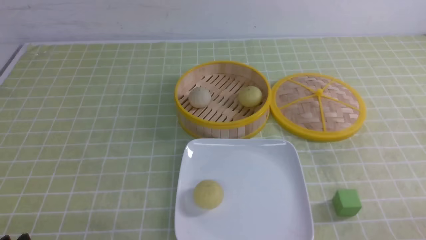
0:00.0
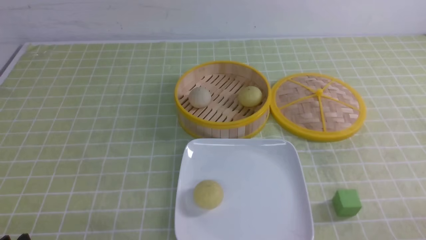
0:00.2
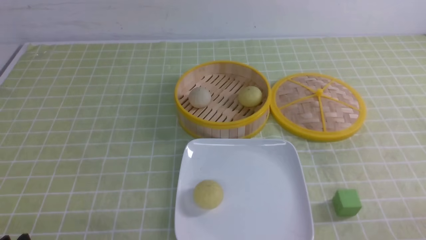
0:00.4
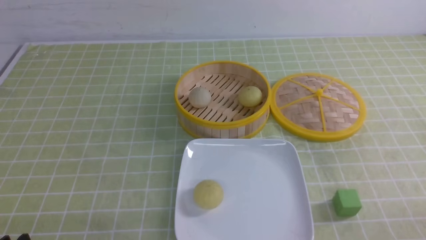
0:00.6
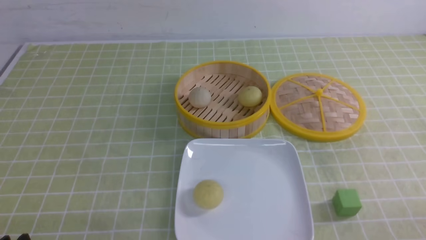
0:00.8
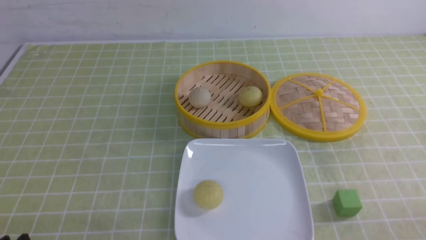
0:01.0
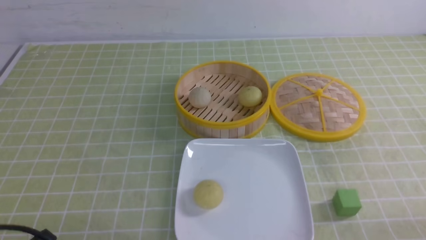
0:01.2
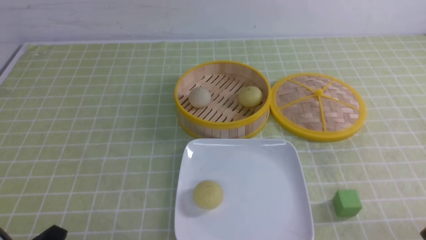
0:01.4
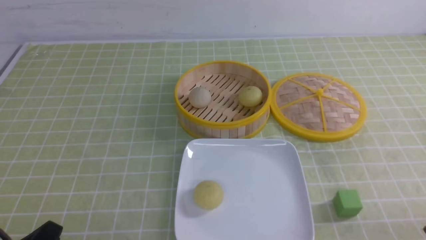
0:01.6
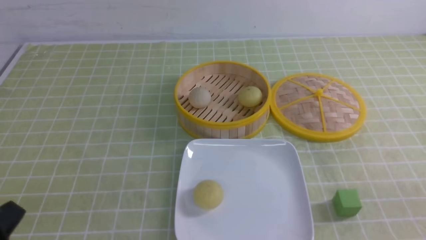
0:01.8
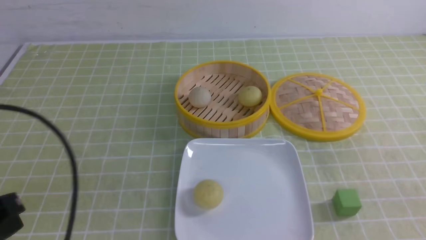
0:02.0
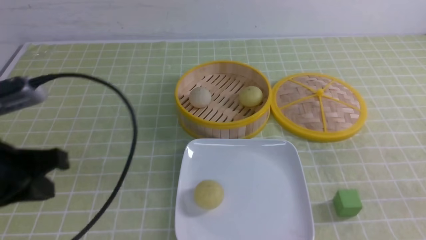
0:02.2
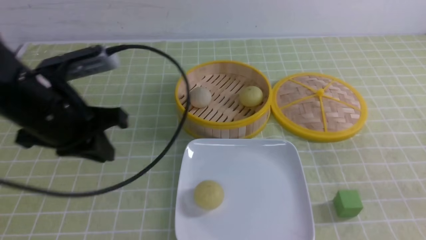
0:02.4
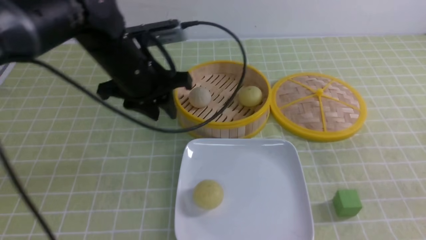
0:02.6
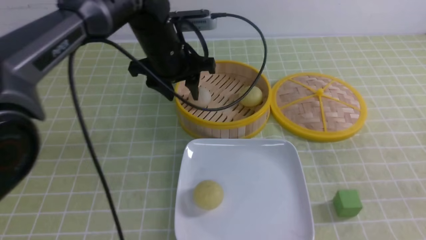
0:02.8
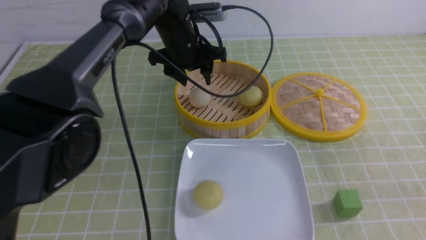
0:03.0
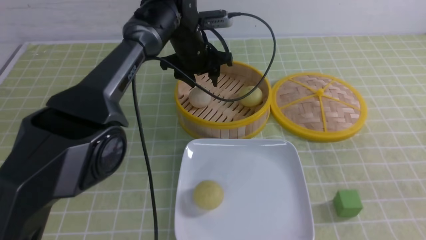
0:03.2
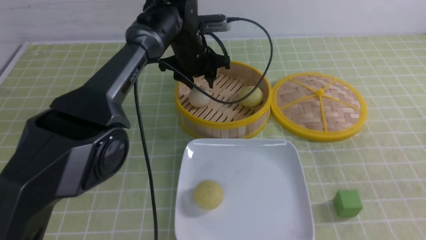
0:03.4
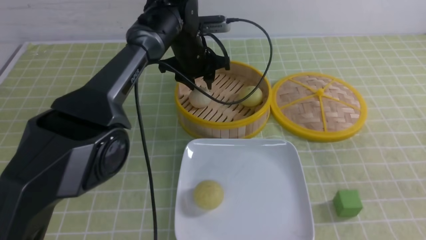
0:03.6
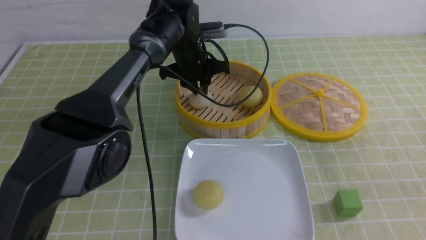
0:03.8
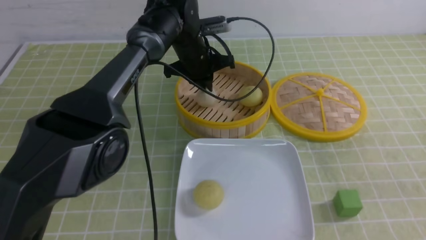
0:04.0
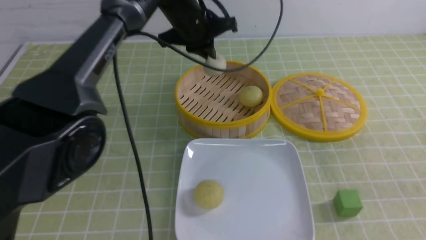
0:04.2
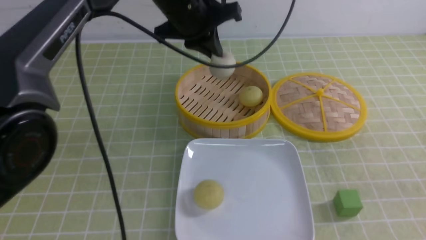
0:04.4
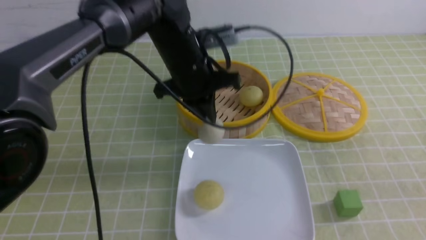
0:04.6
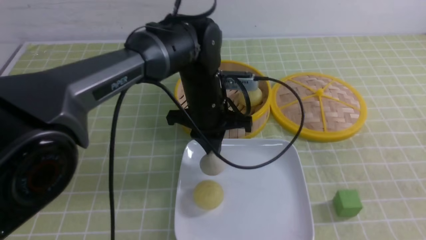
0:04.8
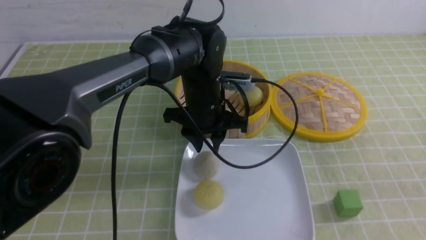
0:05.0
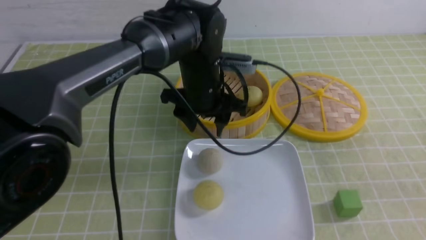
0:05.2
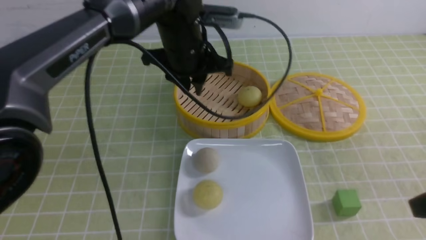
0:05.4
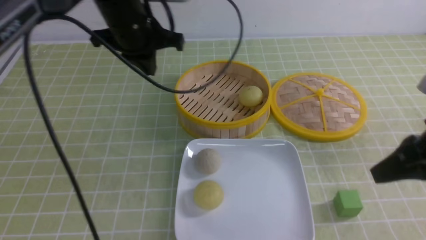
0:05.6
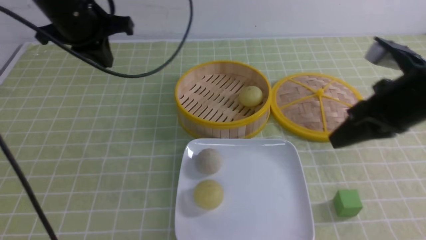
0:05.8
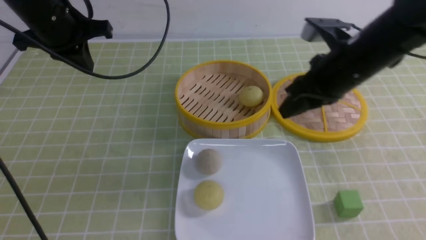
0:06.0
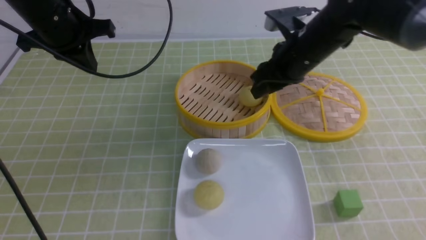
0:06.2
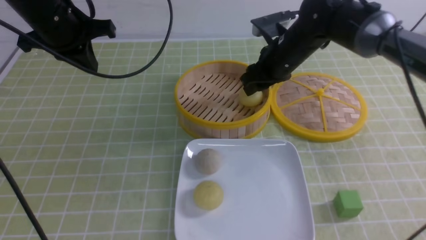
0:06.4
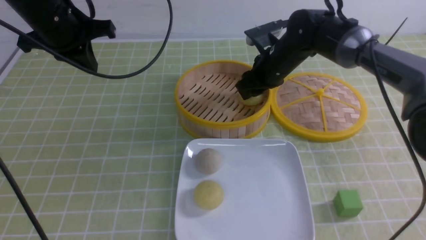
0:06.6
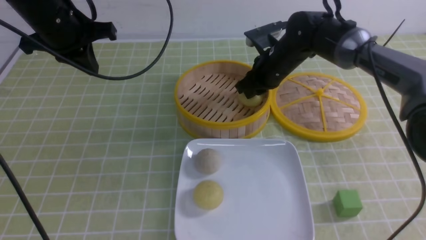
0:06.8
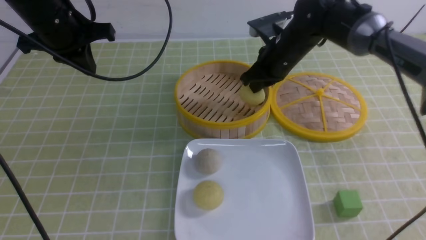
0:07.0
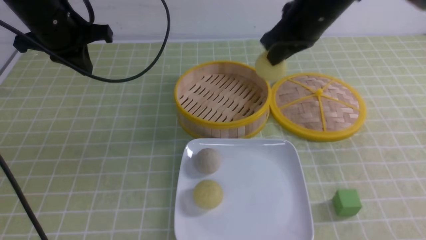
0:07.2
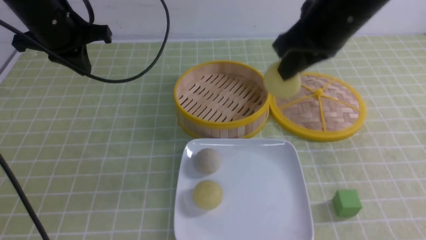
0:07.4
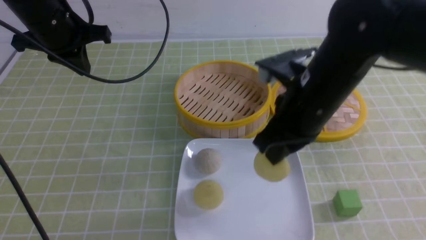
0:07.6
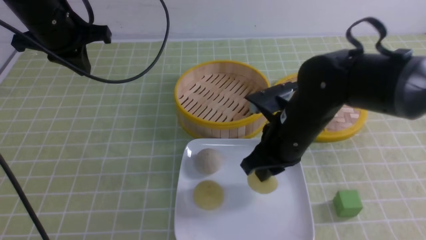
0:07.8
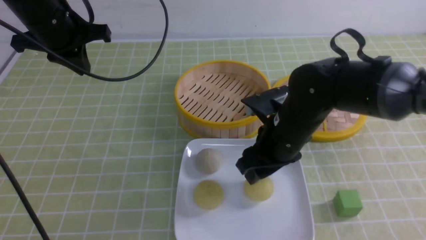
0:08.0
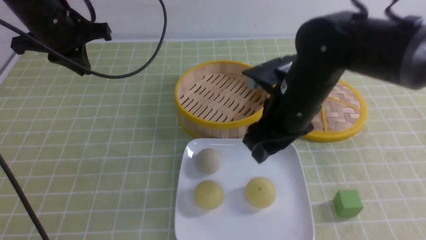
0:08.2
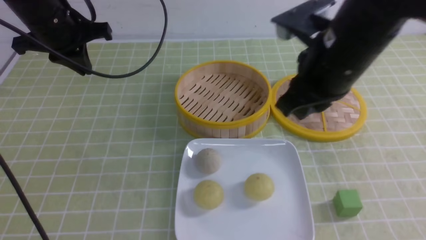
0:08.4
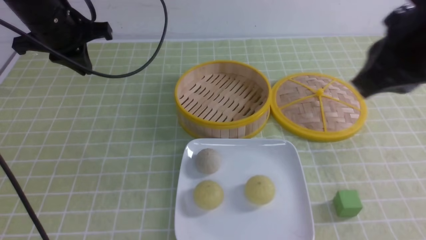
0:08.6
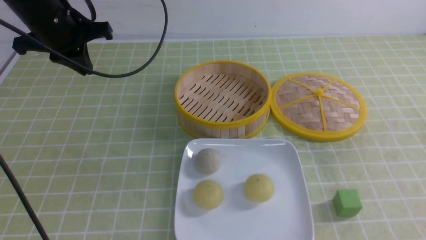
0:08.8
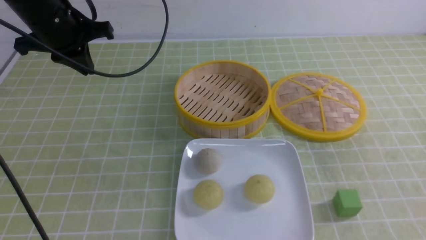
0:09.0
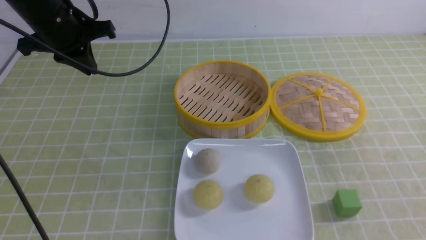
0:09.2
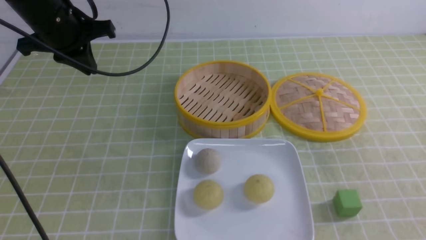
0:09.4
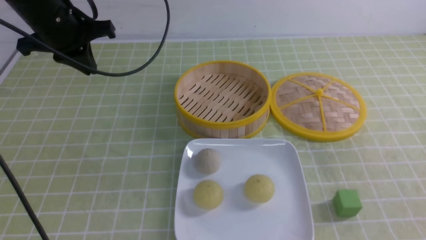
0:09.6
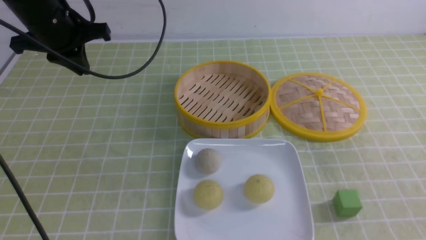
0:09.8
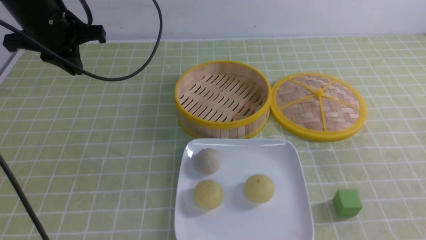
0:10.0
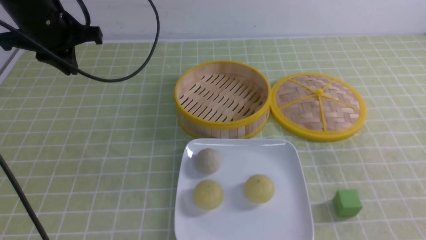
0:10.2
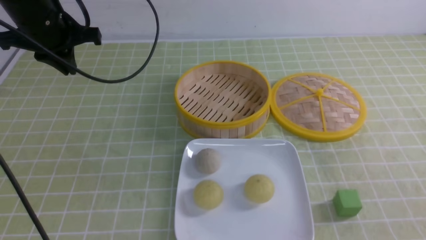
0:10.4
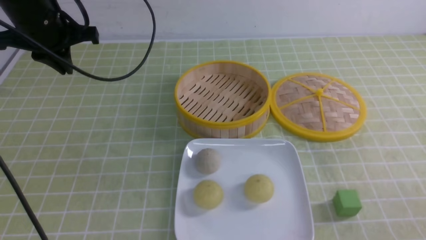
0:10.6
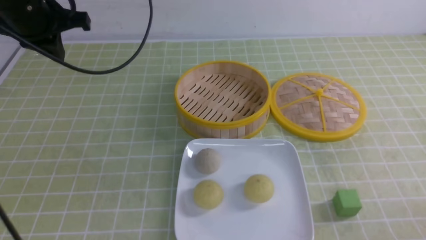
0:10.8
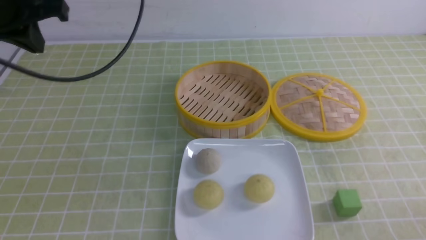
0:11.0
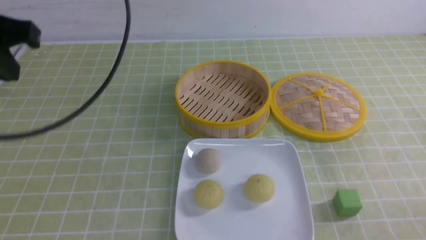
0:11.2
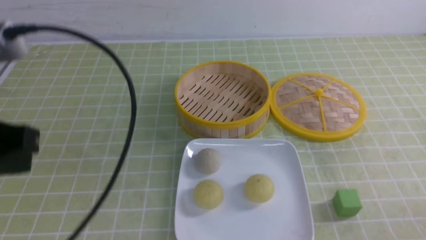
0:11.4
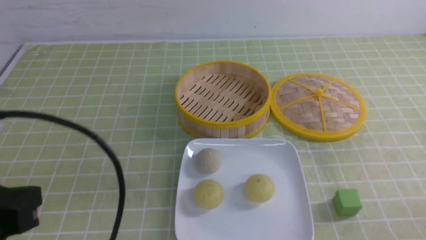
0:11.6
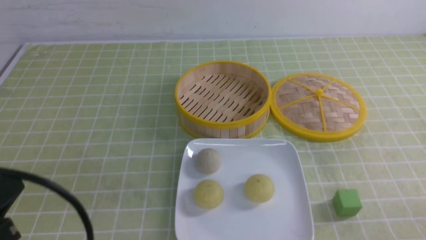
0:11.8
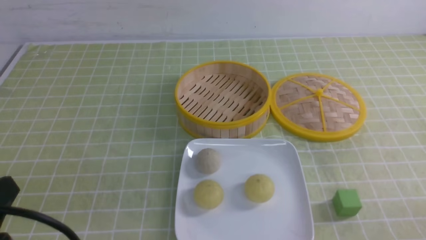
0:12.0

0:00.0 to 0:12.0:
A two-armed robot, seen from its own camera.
Step, 0:00.0 to 0:03.8: use the left arm to grab the steamed stuffed bun that is closest to it.
Step, 0:04.0 to 0:04.8: use the left arm to put the steamed stuffed bun into the plate.
Step, 0:05.2 to 0:06.8: use the right arm to grab the steamed stuffed bun that is closest to it.
Step, 0:07.0 to 0:08.0: use the right arm to put the steamed stuffed bun into the plate.
0:01.6 to 0:03.0: The right gripper is displaced forward and upward by roughly 10 cm, while the left gripper travels forward and to the right by about 50 cm, and opens its fingers.
0:03.0 to 0:04.4: The left gripper moves approximately 5 cm, and closes.
0:04.4 to 0:06.0: The left gripper travels to the left by roughly 20 cm, and opens, then closes again, while the right gripper heads forward and to the left, covering approximately 25 cm.
0:06.0 to 0:07.6: The right gripper travels to the left by about 5 cm, moves roughly 15 cm forward and comes back, and closes.
0:07.6 to 0:09.0: The right gripper heads backward and to the right, covering roughly 30 cm, and opens and closes again.
0:10.4 to 0:12.0: The left gripper goes some 35 cm backward.

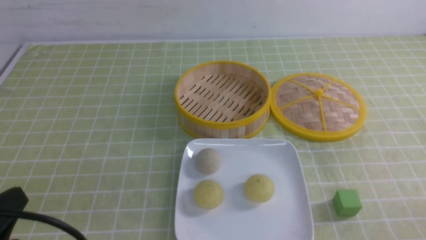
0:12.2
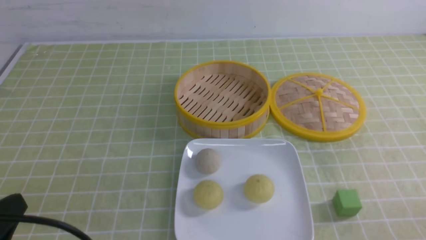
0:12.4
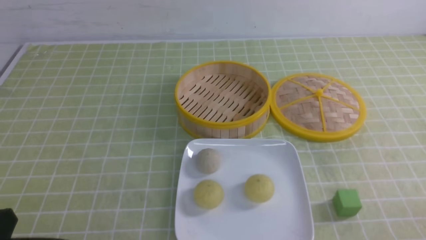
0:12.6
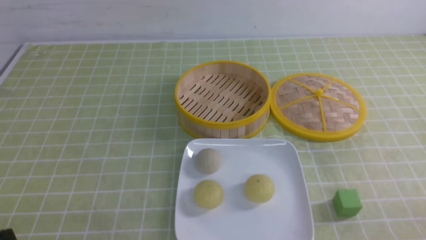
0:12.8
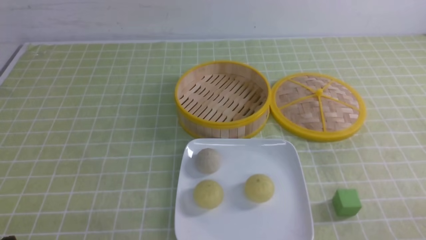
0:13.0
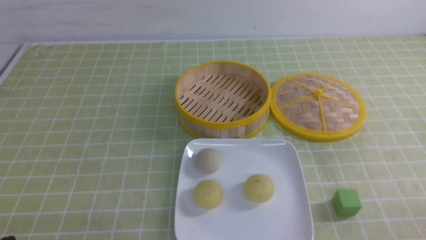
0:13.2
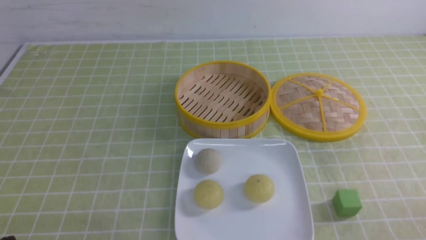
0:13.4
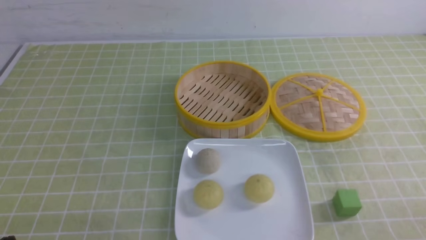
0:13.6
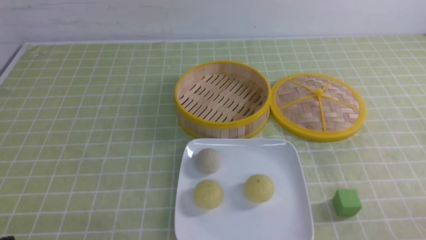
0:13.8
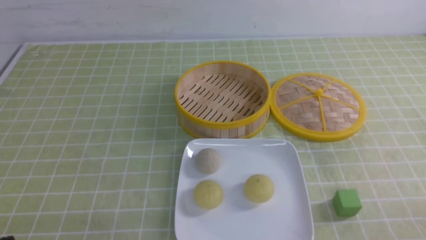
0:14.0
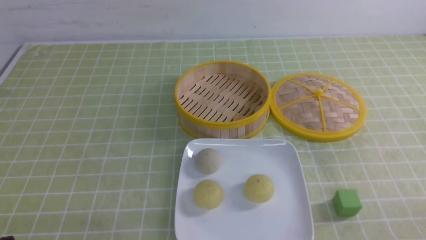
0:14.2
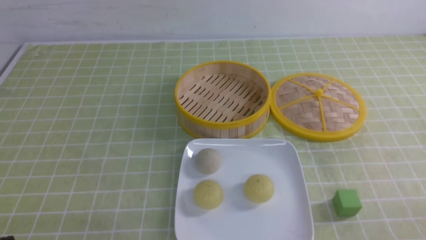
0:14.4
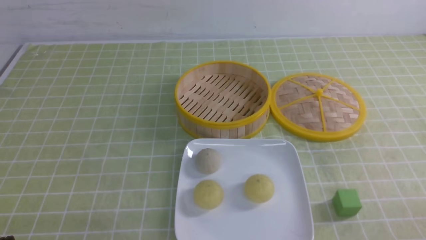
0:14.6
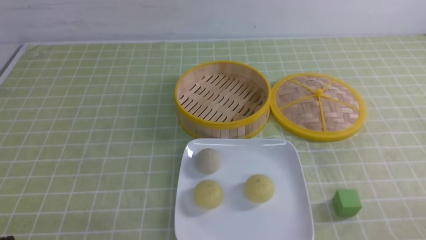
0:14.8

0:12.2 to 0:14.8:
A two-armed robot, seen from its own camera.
0:12.2 to 0:13.4: The left gripper shifts approximately 10 cm downward.
0:13.4 to 0:14.8: The two grippers keep their place.
